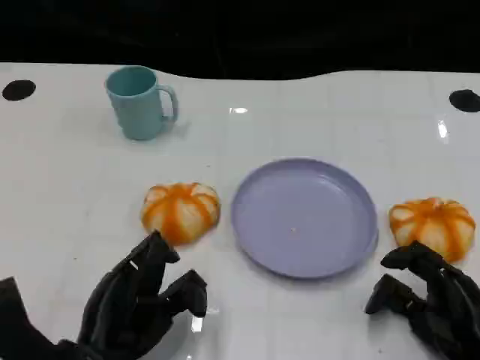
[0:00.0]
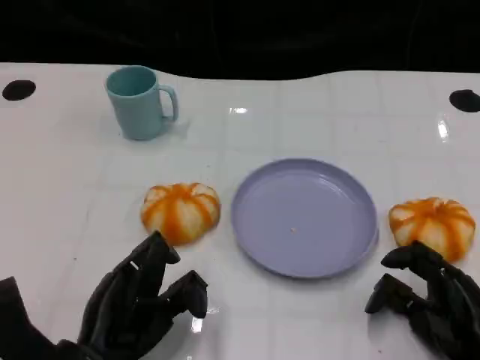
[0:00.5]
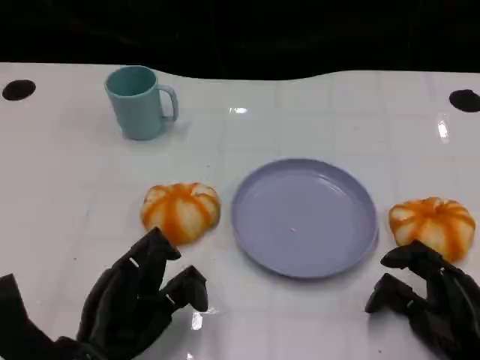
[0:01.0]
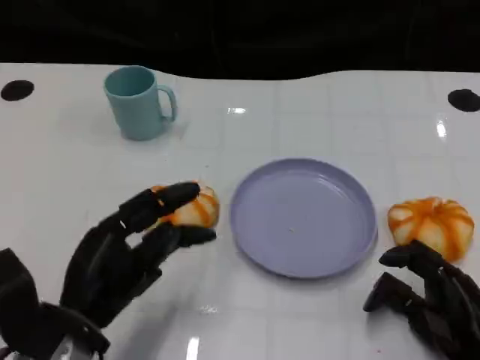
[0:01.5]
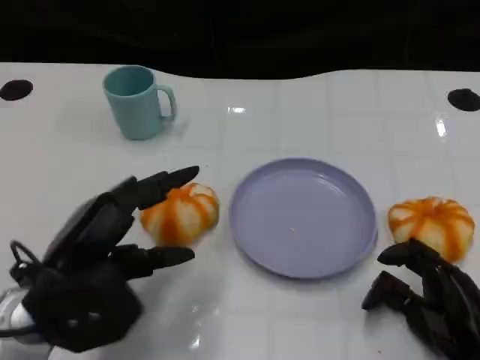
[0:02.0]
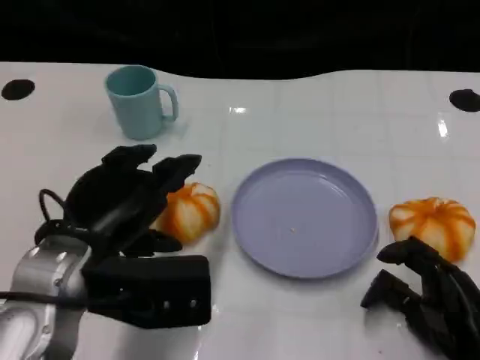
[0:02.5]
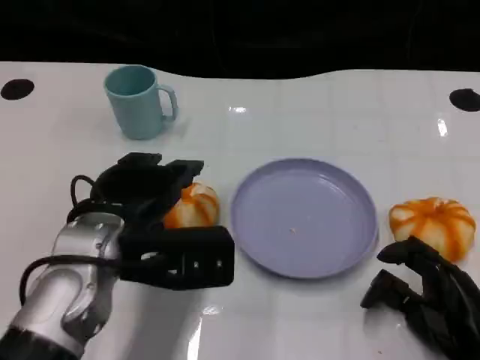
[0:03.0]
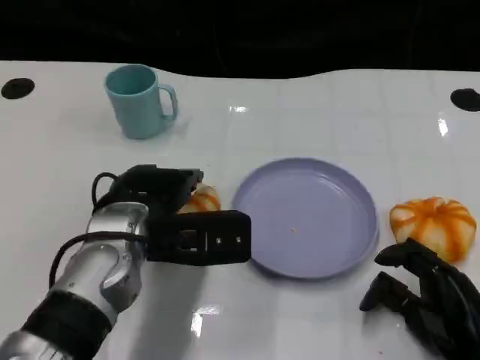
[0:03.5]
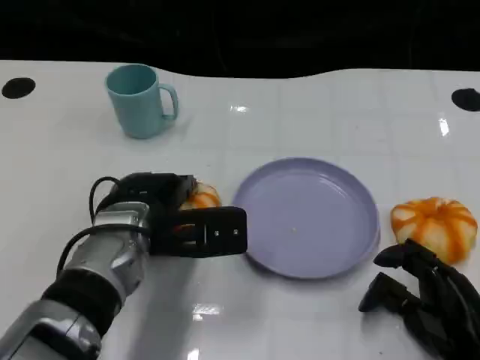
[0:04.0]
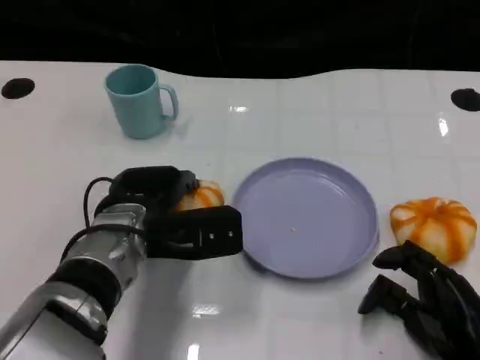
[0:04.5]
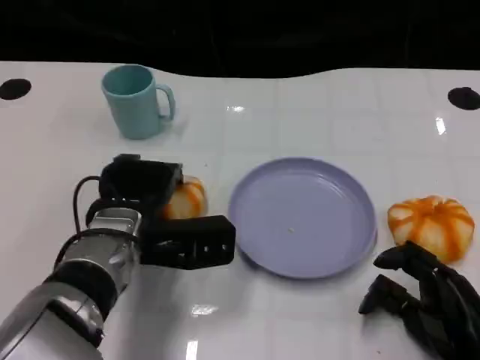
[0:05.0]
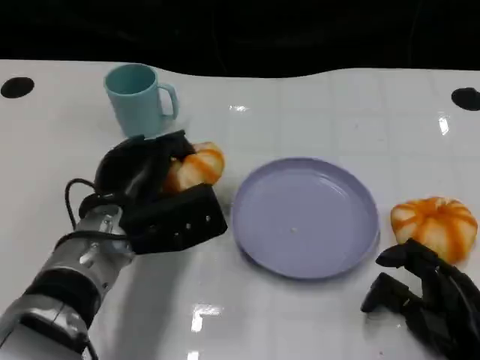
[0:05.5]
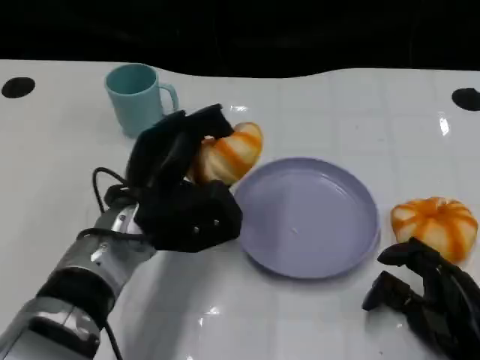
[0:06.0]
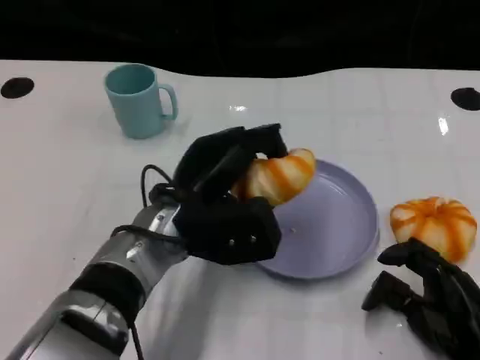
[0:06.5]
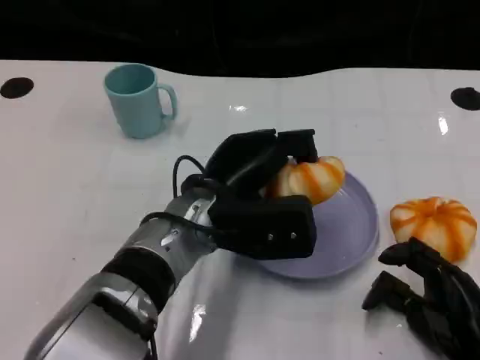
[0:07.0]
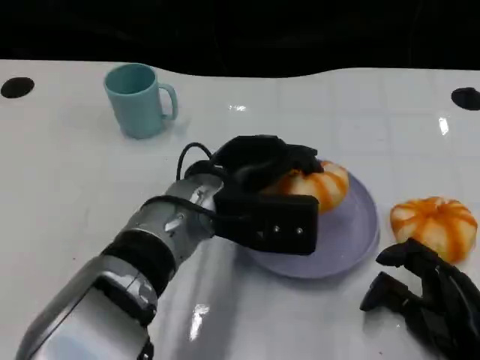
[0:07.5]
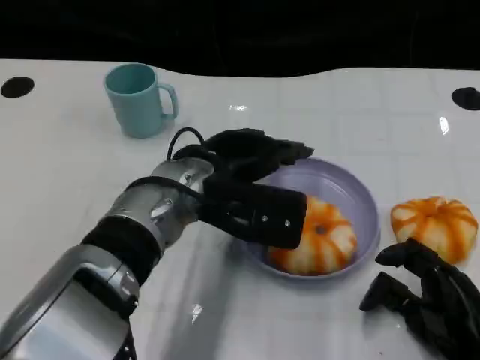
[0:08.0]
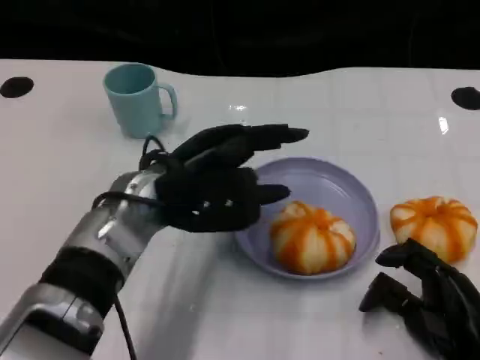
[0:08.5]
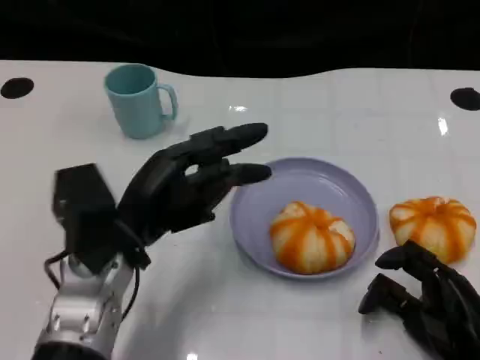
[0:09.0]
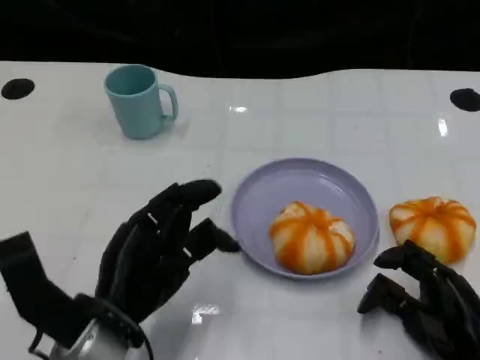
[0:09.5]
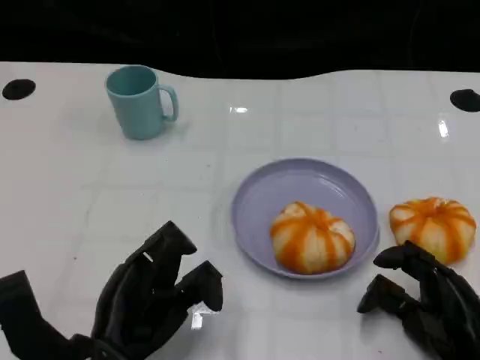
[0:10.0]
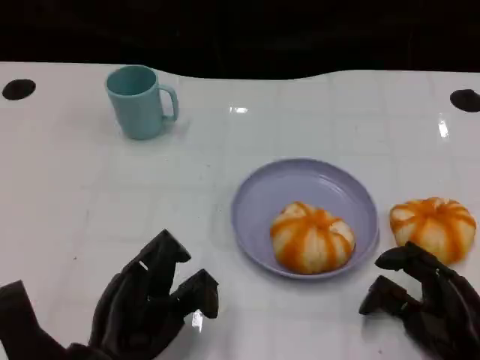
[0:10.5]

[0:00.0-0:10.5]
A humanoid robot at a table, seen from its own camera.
Task of the whole recording: Grasp the bread from the table and place it into the plate.
0:00.0 to 0:02.0: The left hand shifts some 10 cm upward.
0:02.0 to 0:04.0: The left hand travels forward and to the right by approximately 10 cm.
0:08.5 to 0:10.5: The left hand goes about 15 cm backward, downward and to the left.

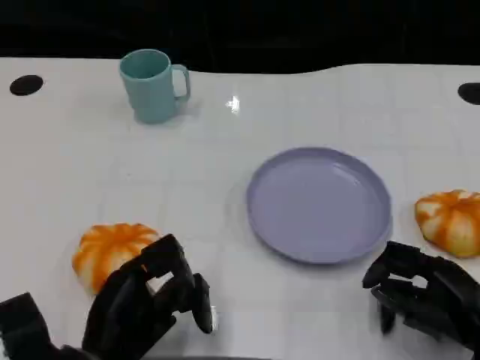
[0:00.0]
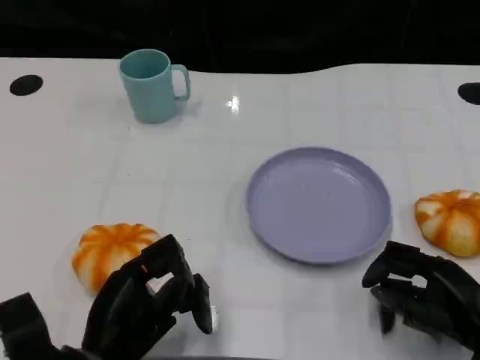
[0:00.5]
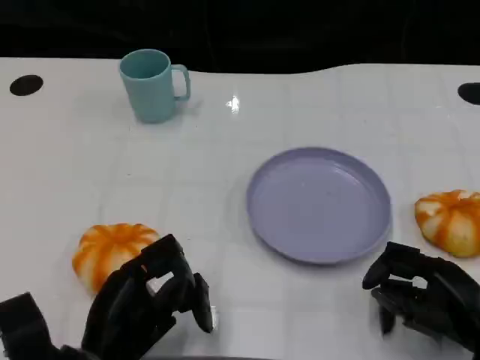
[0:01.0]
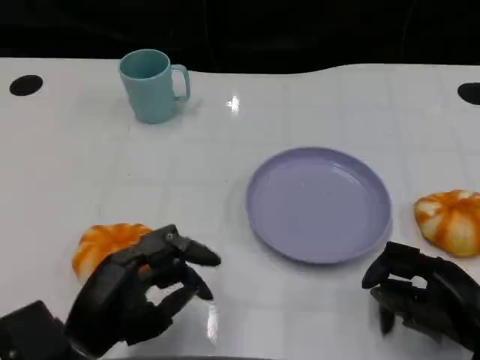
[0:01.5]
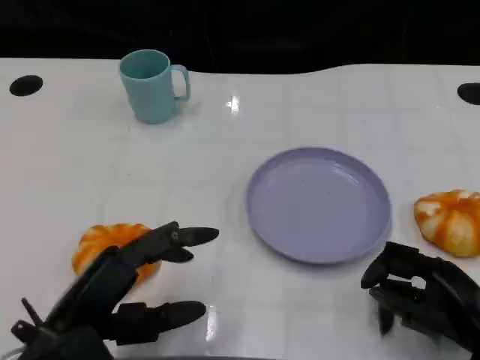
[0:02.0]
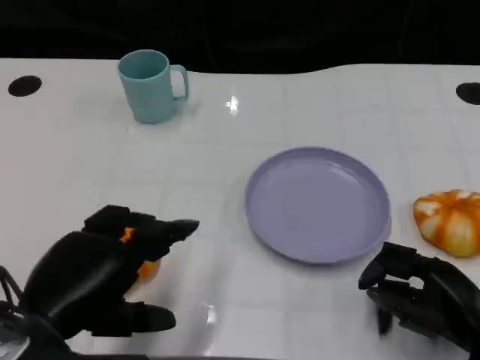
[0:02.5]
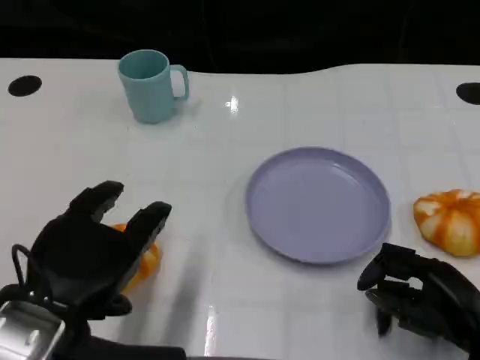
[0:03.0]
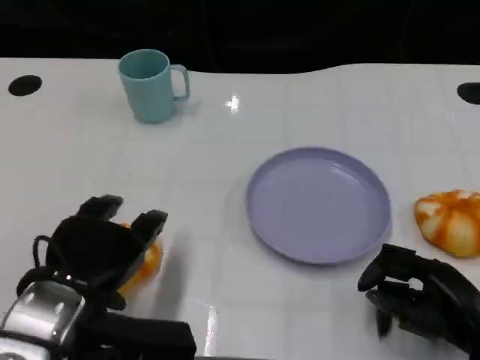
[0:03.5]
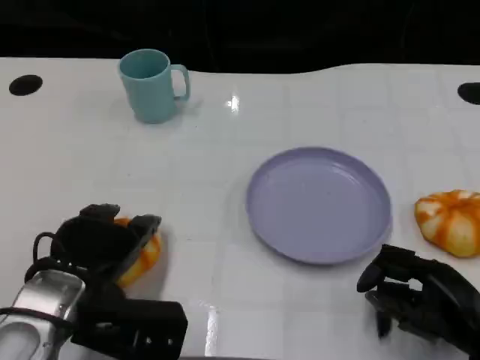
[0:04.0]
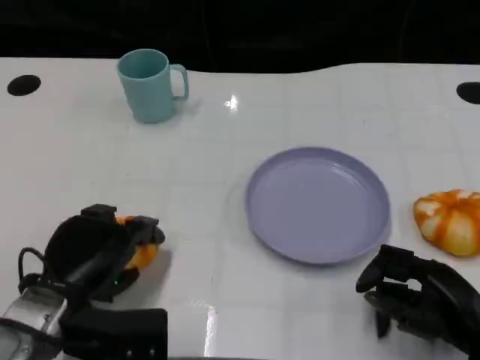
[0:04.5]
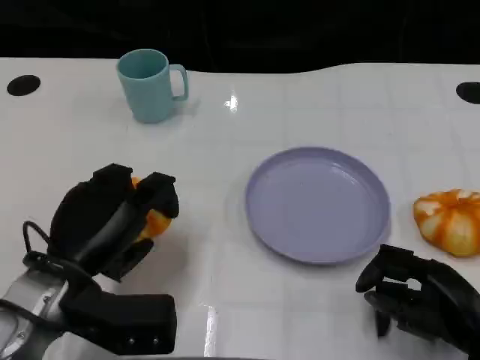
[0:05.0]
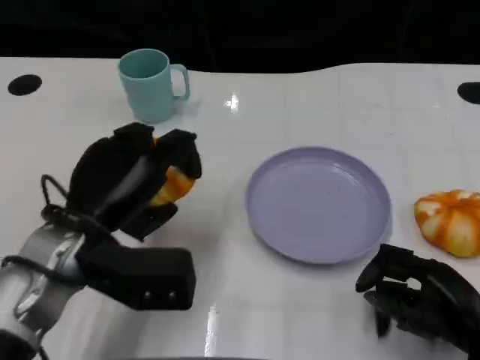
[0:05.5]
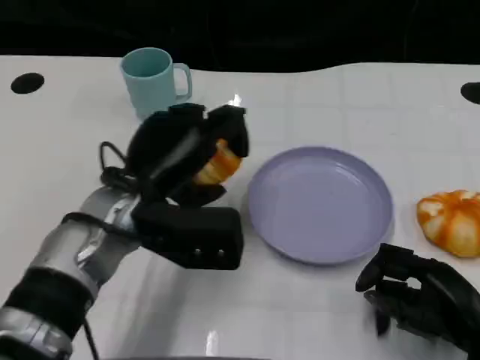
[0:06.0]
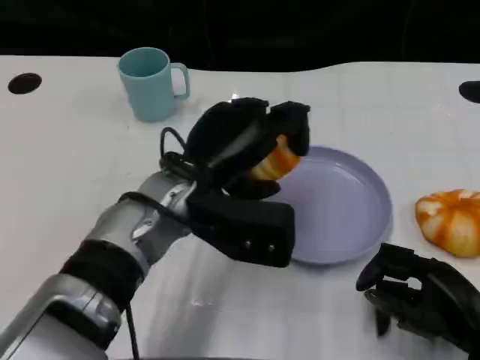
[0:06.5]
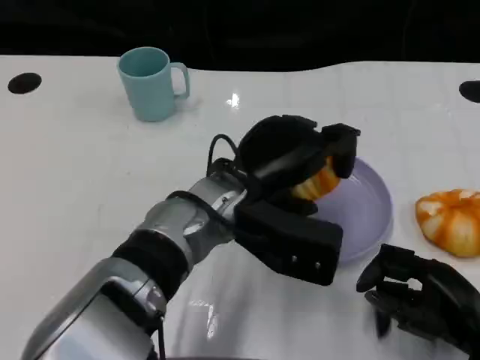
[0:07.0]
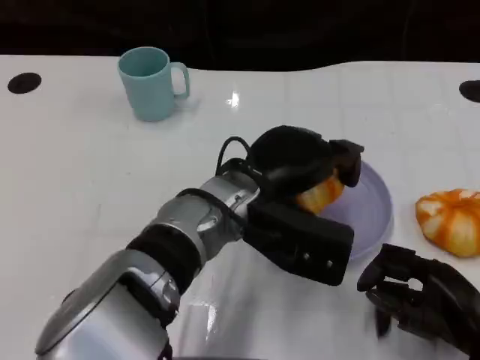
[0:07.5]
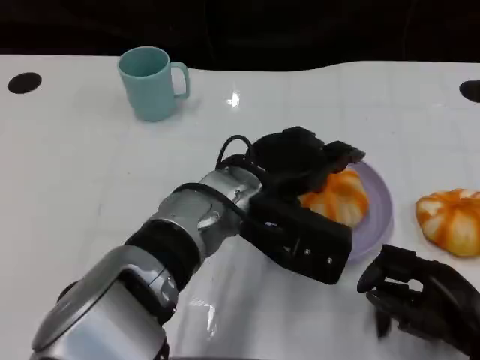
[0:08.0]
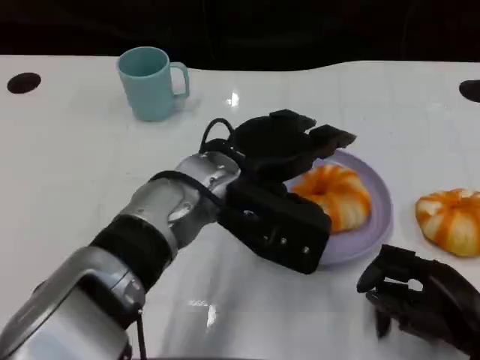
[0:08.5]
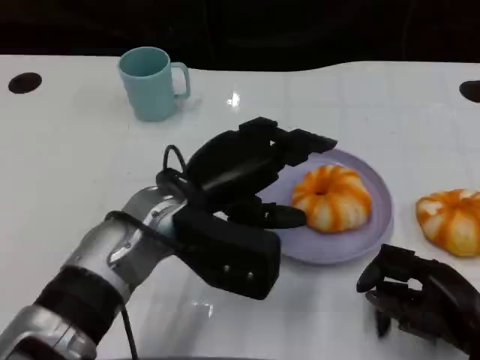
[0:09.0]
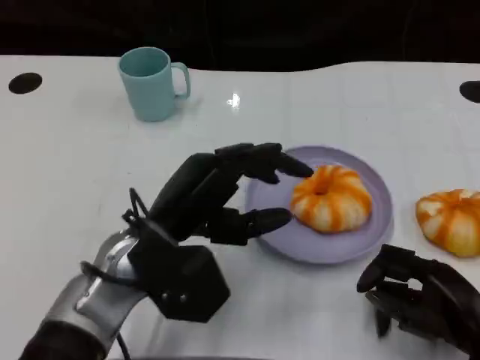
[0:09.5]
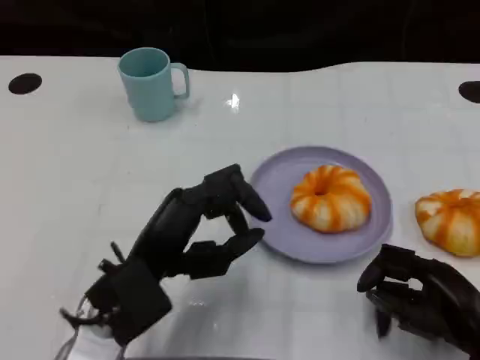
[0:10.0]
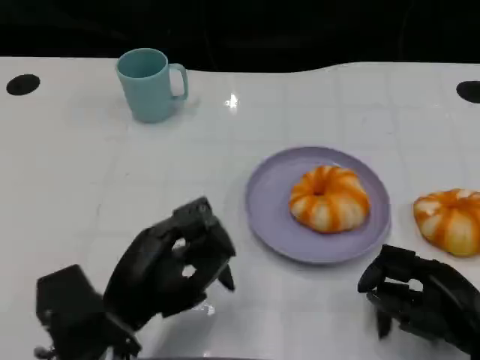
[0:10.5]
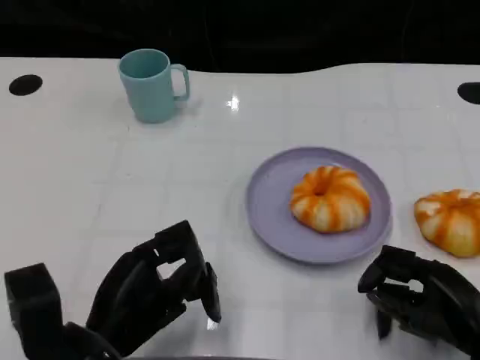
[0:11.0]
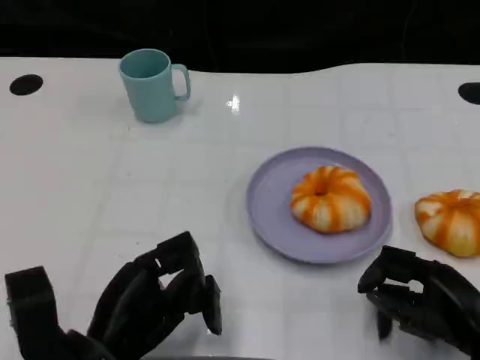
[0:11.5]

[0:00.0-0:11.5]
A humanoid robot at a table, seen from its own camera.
Task of the whole recording: Grasp the bread from the table and place it into the plate.
0:00.0 to 0:02.0: The left hand travels upward by approximately 5 cm.
0:02.0 to 0:04.0: The left hand is displaced forward by about 5 cm.
0:04.0 to 0:06.0: The left hand travels to the right and forward by some 10 cm.
0:06.0 to 0:07.5: The left hand travels to the right by some 10 cm.
0:07.5 to 0:09.5: The left hand goes about 10 cm to the left.
0:09.5 to 0:11.5: The left hand heads backward, downward and to the left, covering some 10 cm.

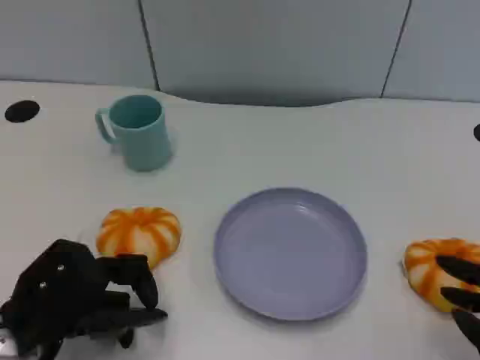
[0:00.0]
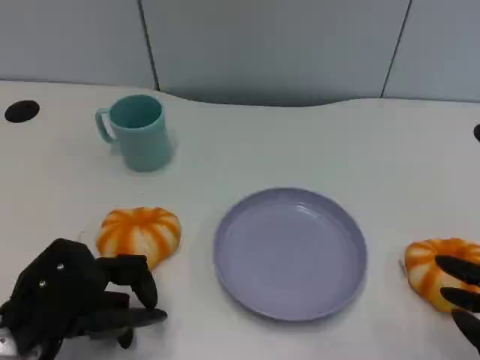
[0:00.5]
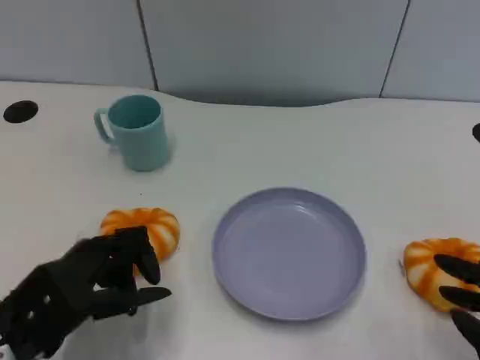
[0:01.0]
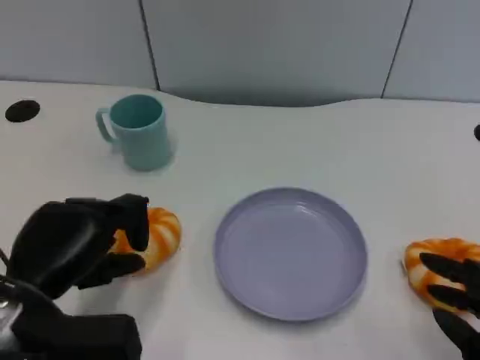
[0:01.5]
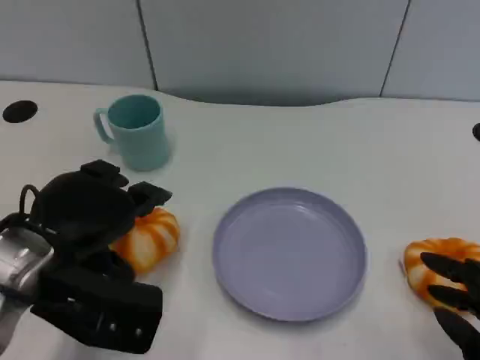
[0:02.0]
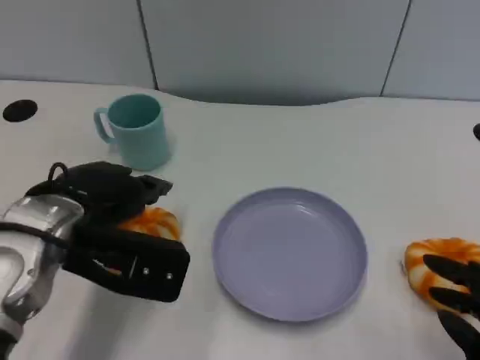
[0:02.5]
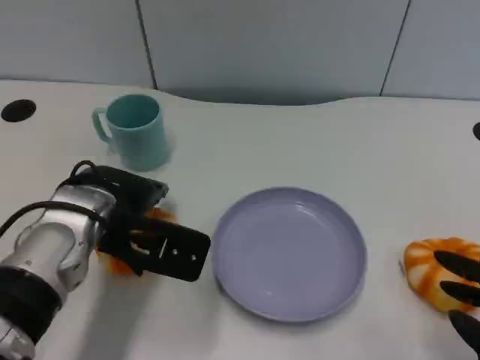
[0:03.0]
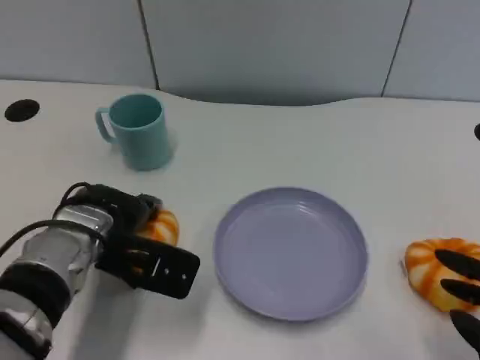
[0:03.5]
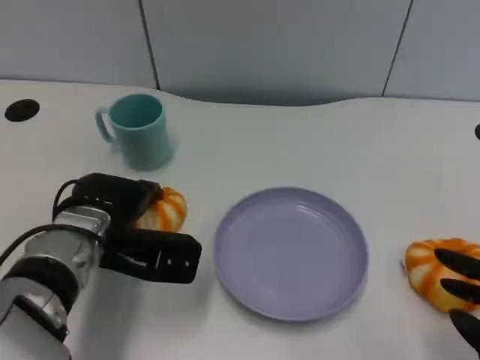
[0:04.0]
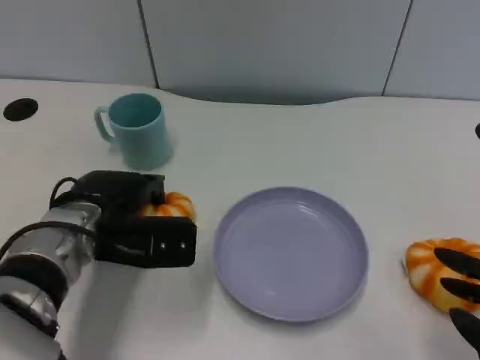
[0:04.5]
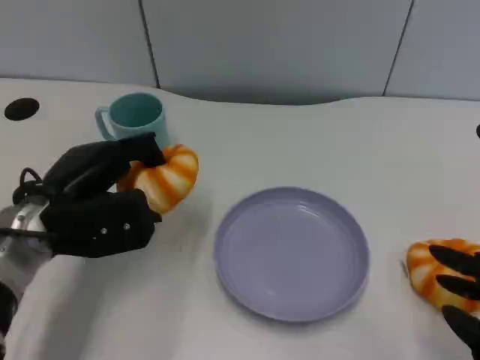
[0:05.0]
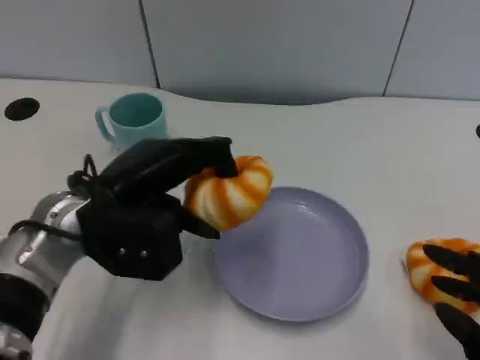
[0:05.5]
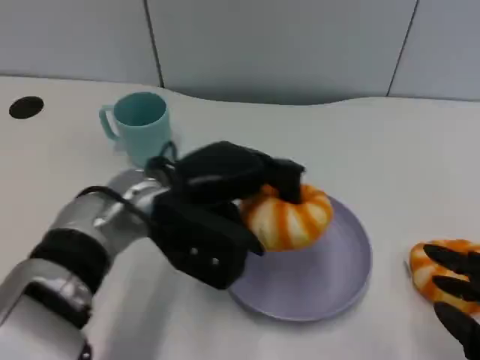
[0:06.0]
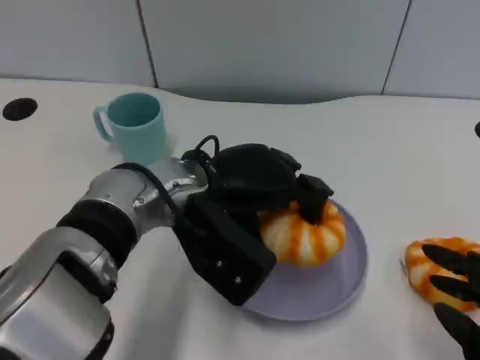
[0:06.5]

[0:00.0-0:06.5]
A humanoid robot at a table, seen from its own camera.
Task of the whole recording: Grasp the bread from the table and place it into the plate.
0:00.0 to 0:02.0: The left hand moves upward, some 10 cm.
0:02.0 to 0:04.5: The left hand shifts some 10 cm forward and downward.
0:04.5 to 0:06.5: The left hand moves to the right and upward, some 10 cm.
